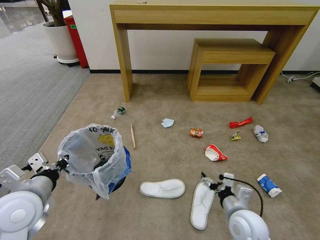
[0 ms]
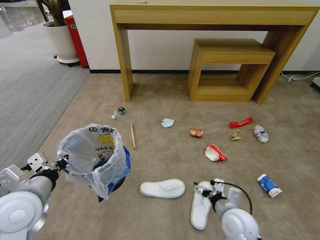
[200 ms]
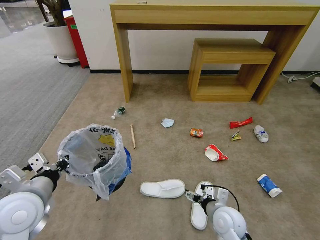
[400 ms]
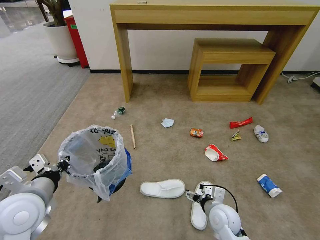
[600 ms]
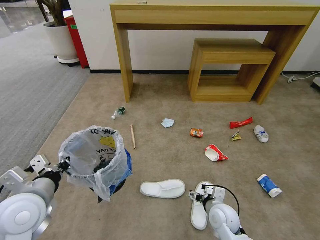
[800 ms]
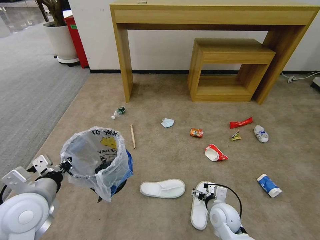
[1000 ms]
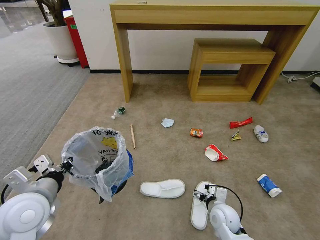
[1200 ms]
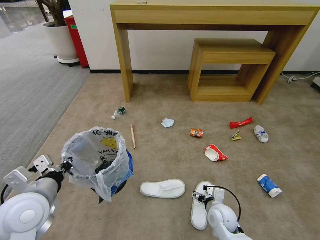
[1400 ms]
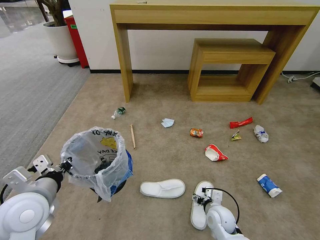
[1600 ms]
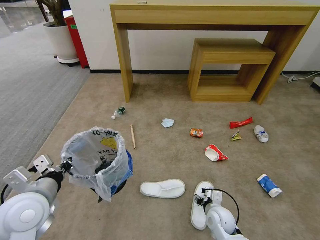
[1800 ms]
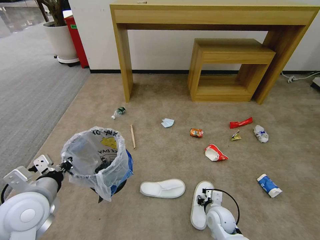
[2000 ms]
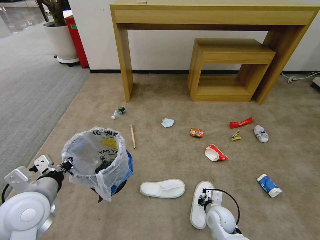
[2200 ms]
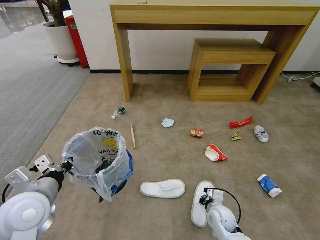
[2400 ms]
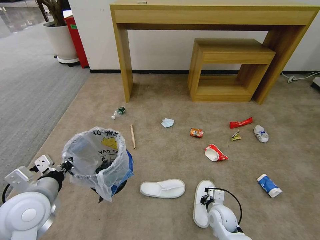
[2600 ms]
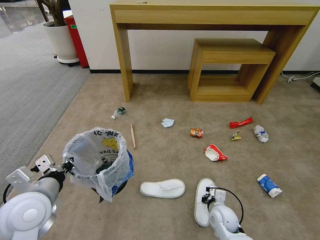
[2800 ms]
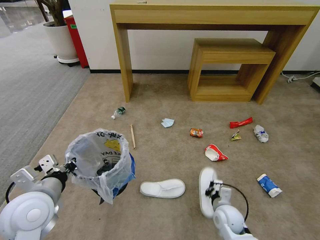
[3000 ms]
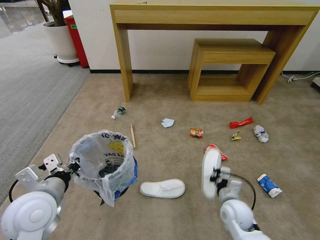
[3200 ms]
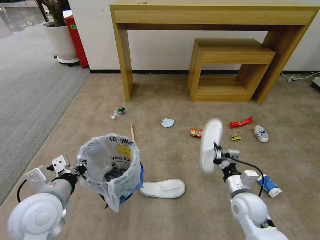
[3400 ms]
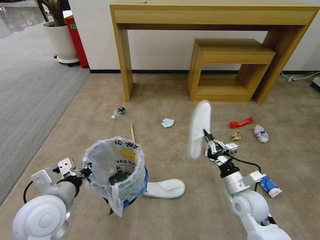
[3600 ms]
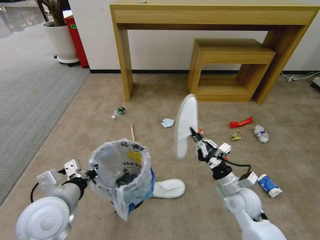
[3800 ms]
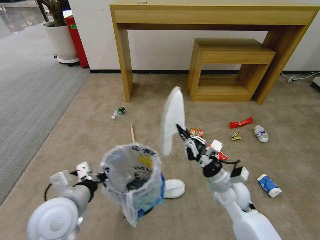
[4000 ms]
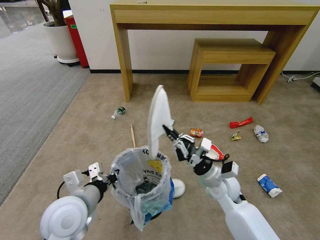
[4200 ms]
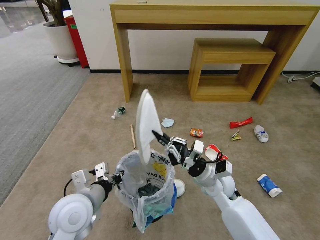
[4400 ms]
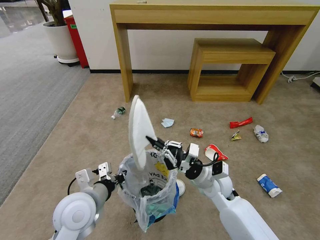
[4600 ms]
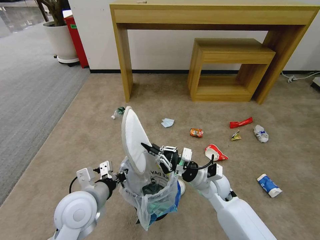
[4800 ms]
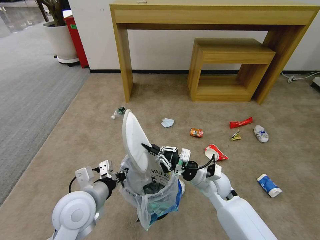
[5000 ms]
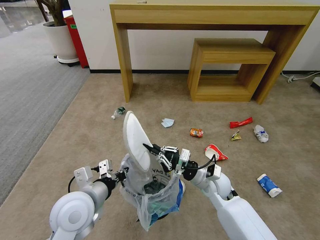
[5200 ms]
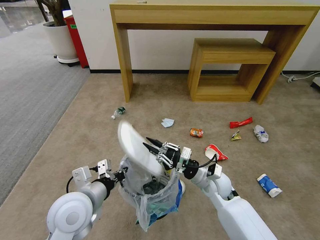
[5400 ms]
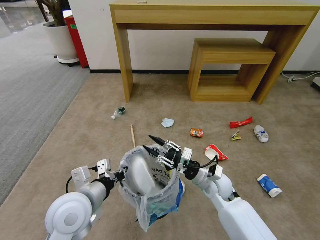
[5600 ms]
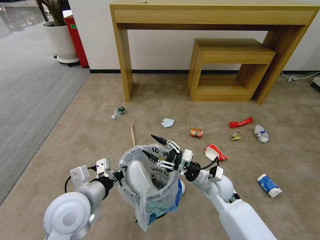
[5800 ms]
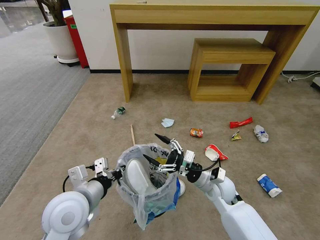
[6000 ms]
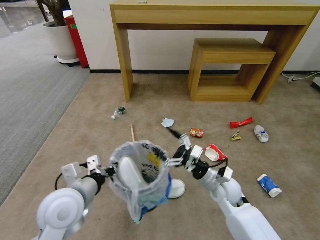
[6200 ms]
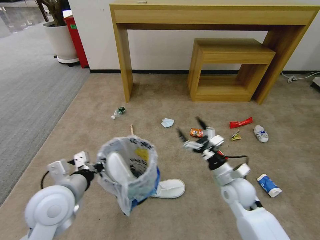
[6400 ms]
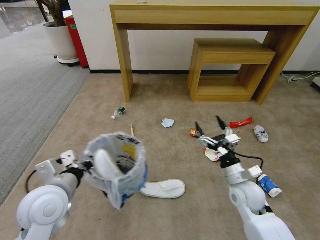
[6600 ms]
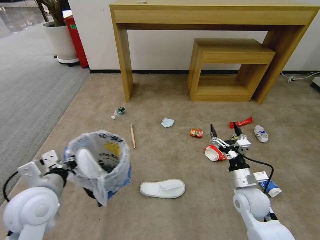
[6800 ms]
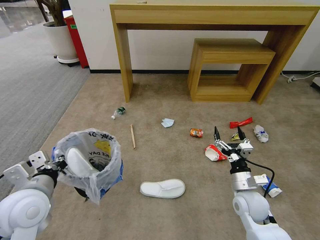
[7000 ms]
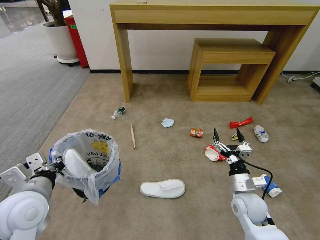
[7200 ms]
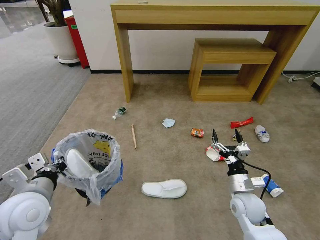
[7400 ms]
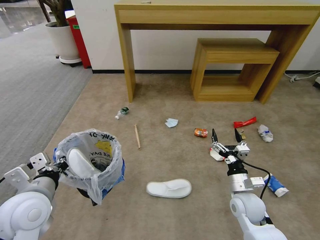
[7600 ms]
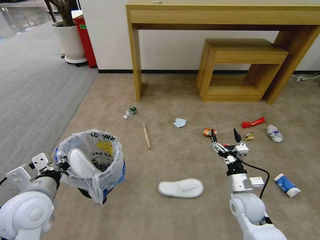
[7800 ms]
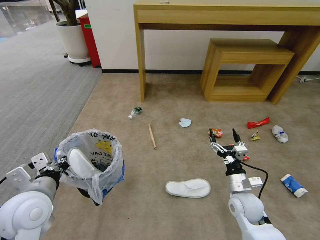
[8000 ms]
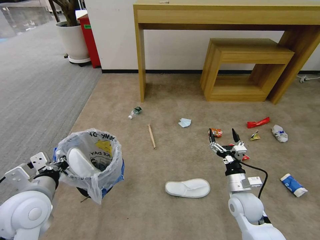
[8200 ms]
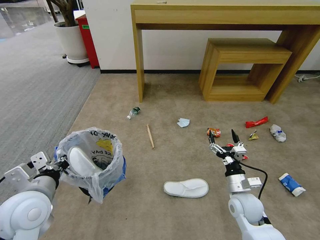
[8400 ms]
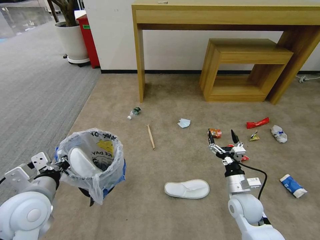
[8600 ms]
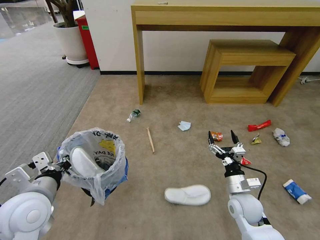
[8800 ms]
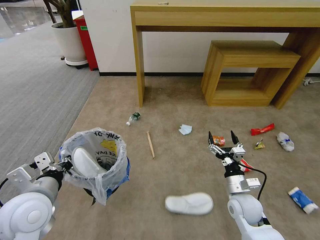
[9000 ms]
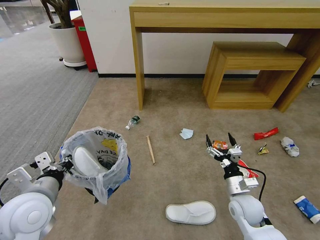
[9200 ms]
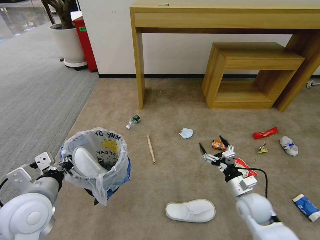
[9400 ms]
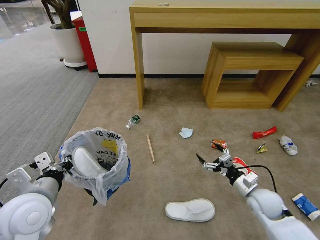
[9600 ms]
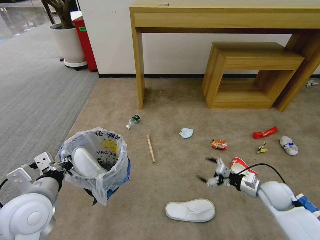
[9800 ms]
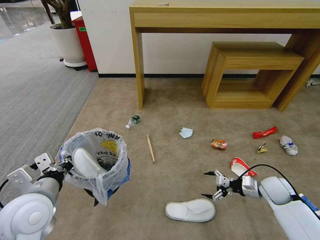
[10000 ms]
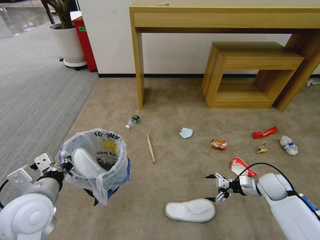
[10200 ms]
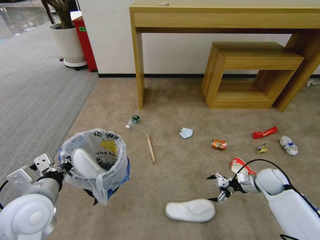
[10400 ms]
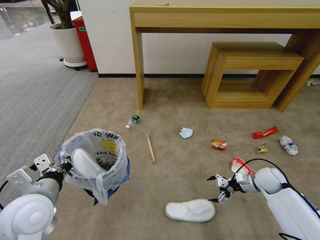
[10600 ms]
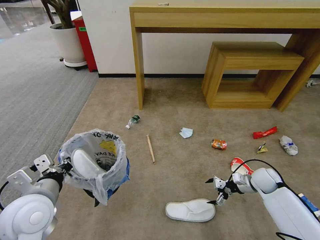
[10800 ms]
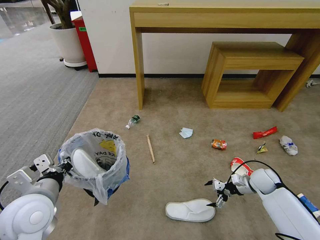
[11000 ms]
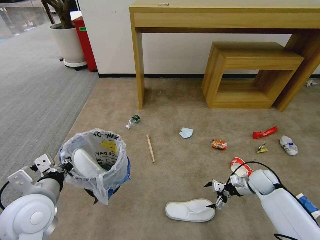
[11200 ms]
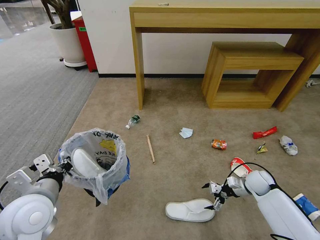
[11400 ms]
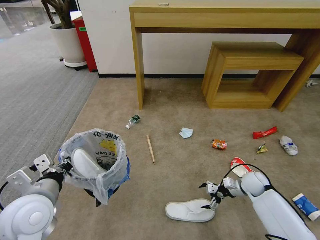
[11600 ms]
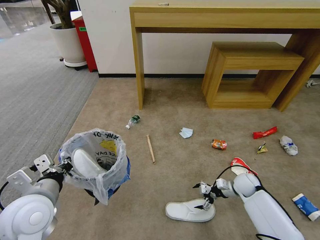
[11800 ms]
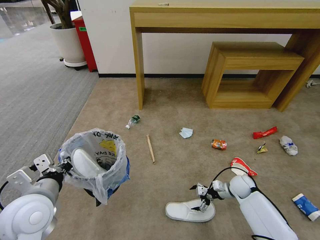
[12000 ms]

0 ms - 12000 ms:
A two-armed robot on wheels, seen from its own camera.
Task of the whole recording: Pick up the trash bin and place the garbage on the floor into it.
0 ms - 1600 ms: The right gripper travels downward by about 10 cm.
1600 ms - 3000 ms: The right gripper closes up.
3000 ms - 4400 ms: The right gripper is displaced upward and forward by roughly 15 cm, while the left gripper goes roughly 10 cm to the right.
4400 ms - 6000 ms: The right gripper opens its fingers.
6000 ms - 7600 ms: The right gripper heads to the right and backward, covering roughly 10 cm, while the left gripper heads to the left, covering approximately 10 cm.
9000 ms - 10400 ms: The right gripper moves to the right and forward, roughly 15 cm.
10400 ms - 12000 ms: The right gripper heads downward and to the left, covering some 10 cm.

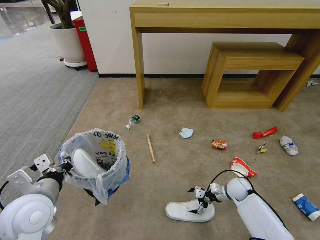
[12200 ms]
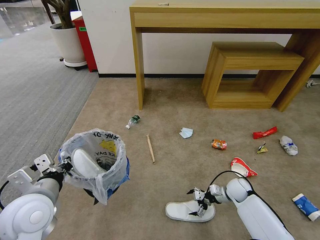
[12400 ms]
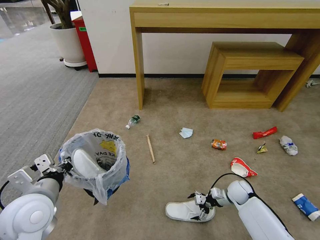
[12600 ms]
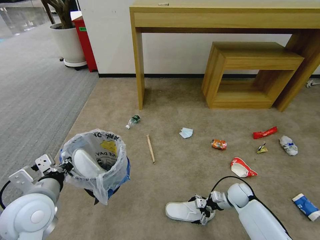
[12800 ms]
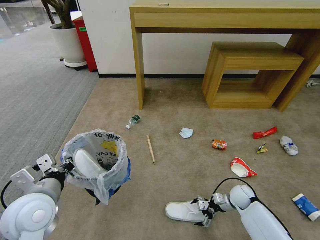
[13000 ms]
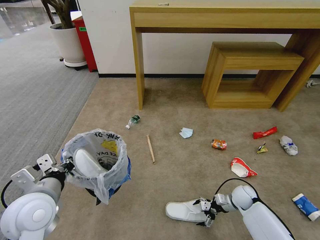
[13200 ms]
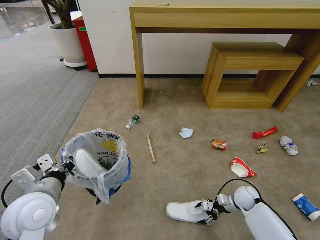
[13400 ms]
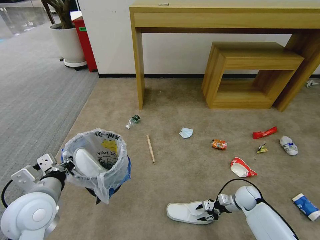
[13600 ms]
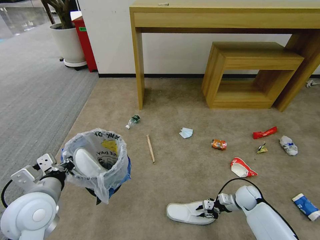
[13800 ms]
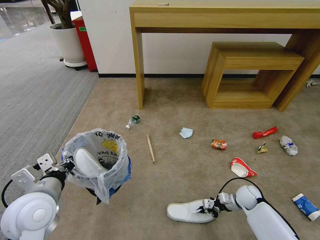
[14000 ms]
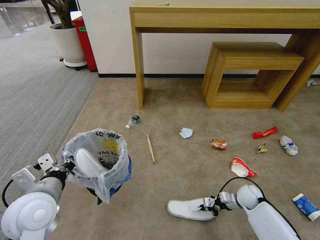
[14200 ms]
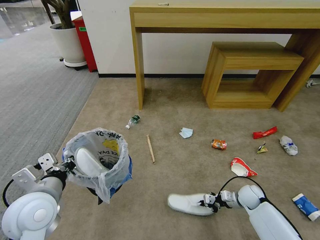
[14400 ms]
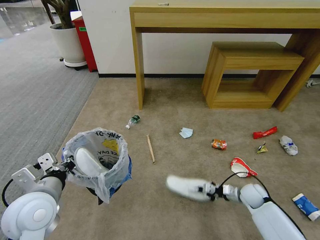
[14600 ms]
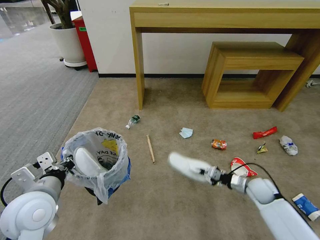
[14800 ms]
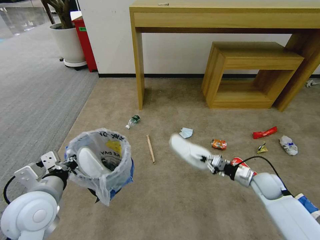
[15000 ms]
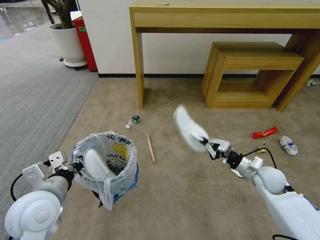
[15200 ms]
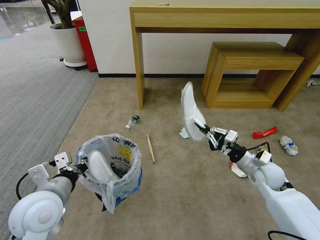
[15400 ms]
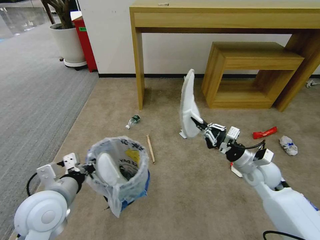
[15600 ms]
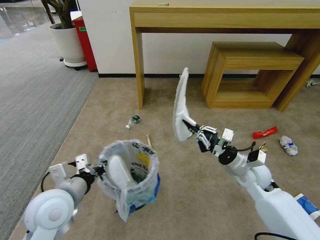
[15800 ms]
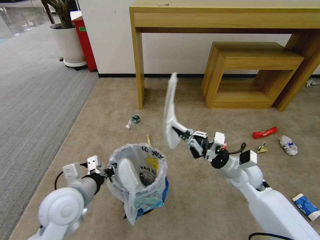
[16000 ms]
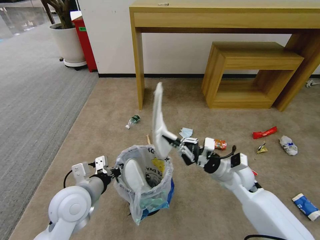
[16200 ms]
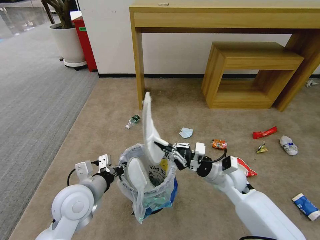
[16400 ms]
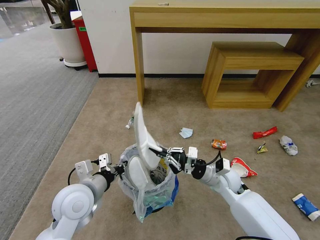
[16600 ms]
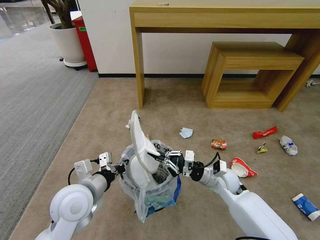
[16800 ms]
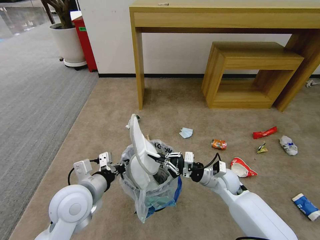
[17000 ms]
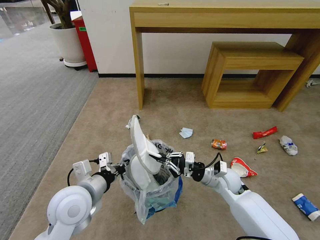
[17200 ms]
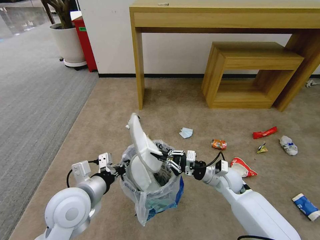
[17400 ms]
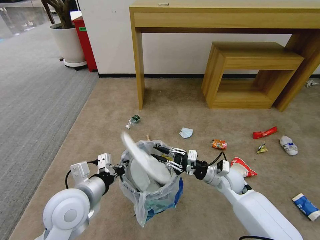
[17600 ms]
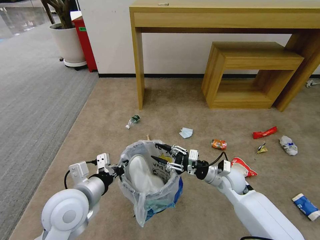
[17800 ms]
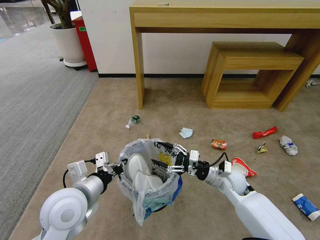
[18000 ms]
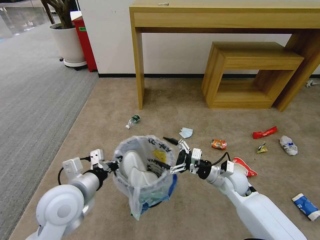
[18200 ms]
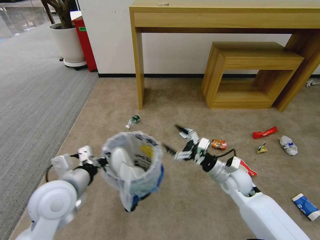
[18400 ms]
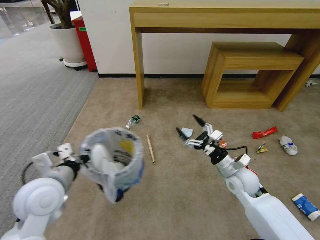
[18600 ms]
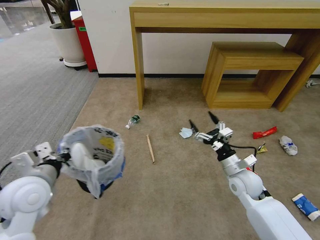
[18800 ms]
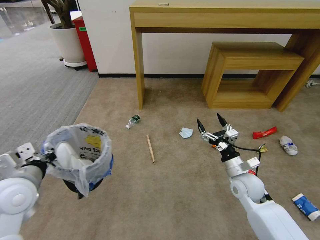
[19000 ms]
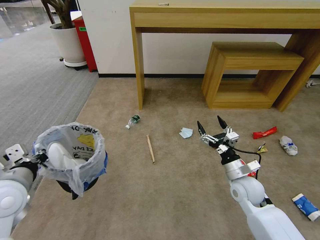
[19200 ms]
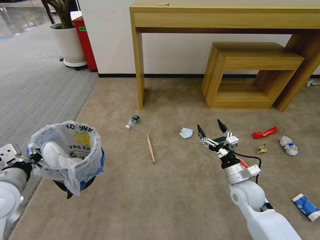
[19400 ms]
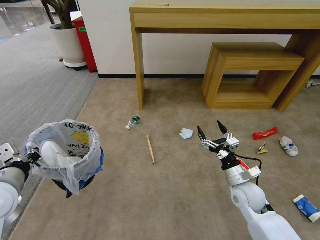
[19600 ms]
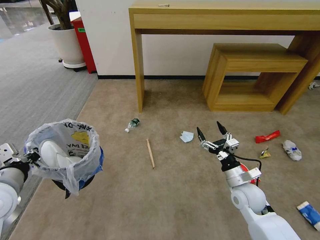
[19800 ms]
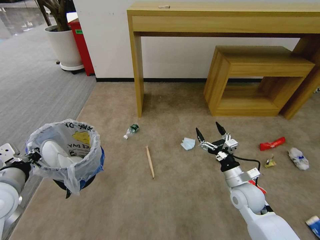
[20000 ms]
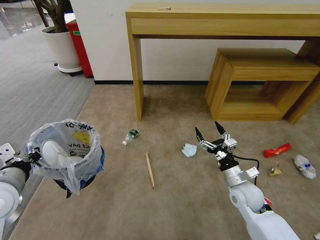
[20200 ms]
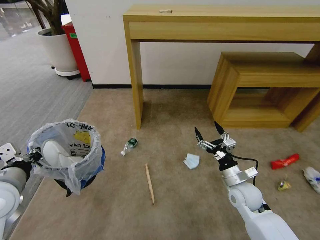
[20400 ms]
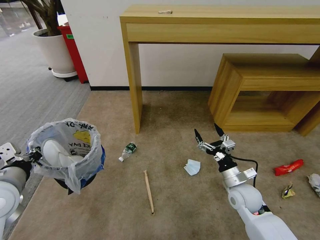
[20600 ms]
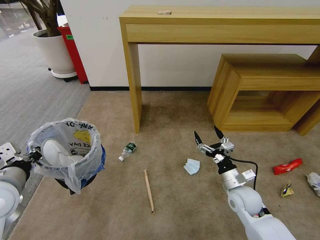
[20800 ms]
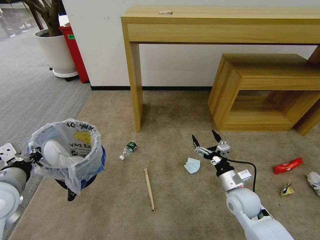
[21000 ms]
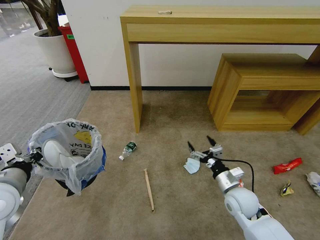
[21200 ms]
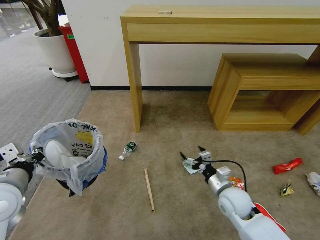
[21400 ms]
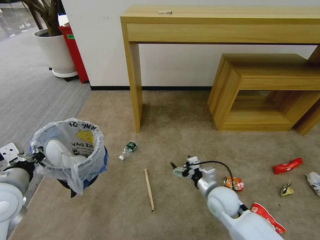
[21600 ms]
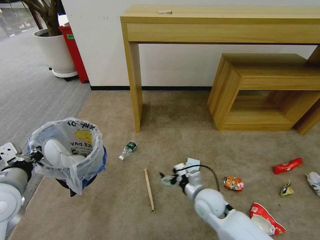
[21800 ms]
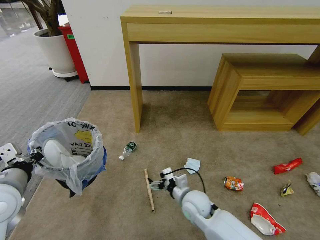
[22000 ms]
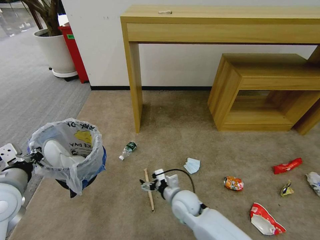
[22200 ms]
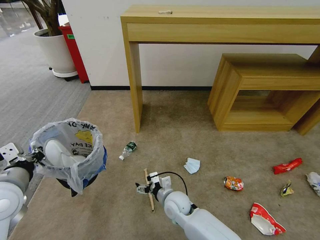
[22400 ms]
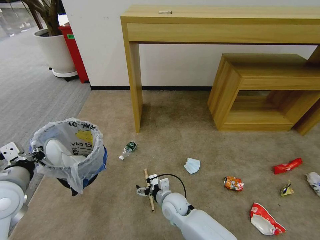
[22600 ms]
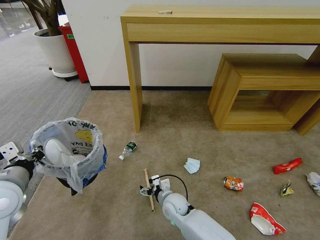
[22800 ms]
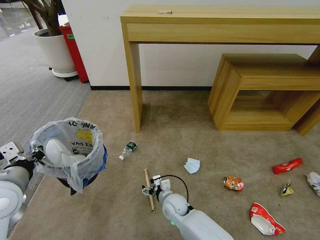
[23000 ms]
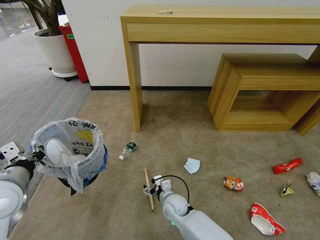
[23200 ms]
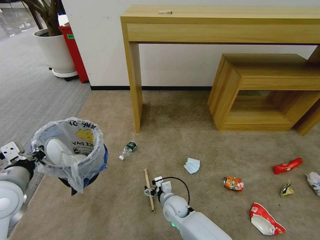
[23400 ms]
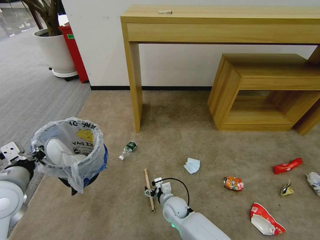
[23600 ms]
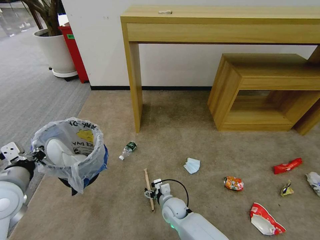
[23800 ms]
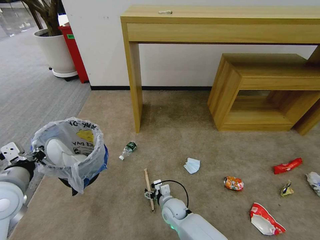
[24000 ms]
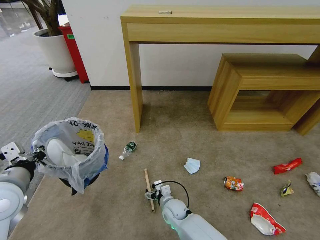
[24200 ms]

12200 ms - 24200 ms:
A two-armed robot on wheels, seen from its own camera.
Task of the whole recording: Pick up the trash bin and place the garbage on the floor into it.
12200 ms - 13800 ms: The right gripper closes up.
13800 ms - 15200 ms: The right gripper shifts about 15 cm upward.
15200 ms - 16600 ms: The right gripper travels to the left by some 15 cm; the left gripper moves to the right, about 5 cm.
16600 ms - 18200 ms: The right gripper opens its fingers.
18200 ms - 19800 ms: The left gripper travels to the left by some 15 cm. The right gripper moves some 5 cm.
21200 ms - 22600 ms: The right gripper shifts about 20 cm to the left.
22600 ms - 24200 ms: The right gripper goes approximately 5 cm downward.
